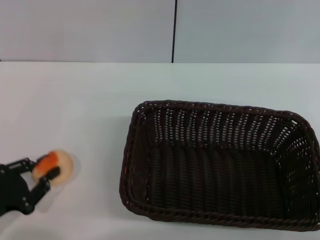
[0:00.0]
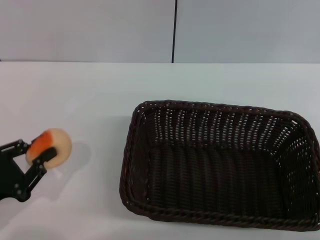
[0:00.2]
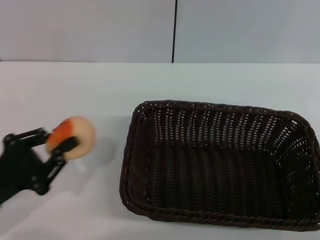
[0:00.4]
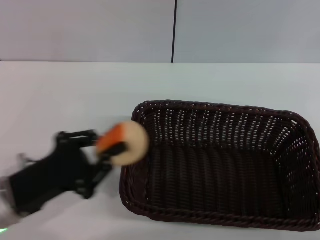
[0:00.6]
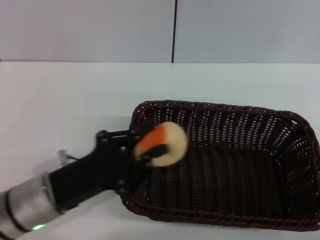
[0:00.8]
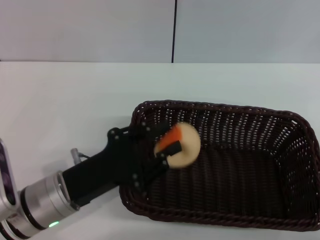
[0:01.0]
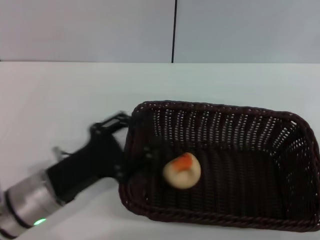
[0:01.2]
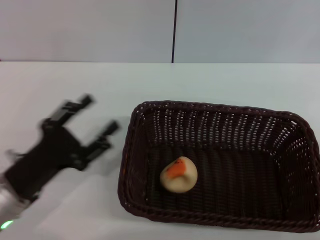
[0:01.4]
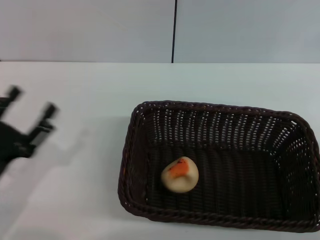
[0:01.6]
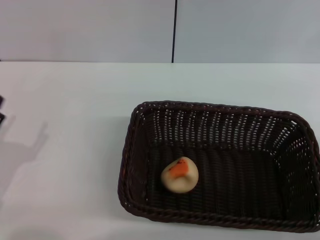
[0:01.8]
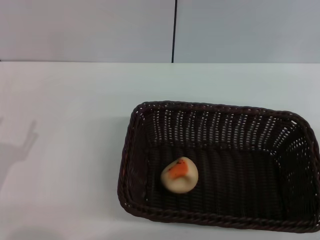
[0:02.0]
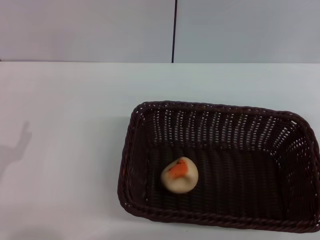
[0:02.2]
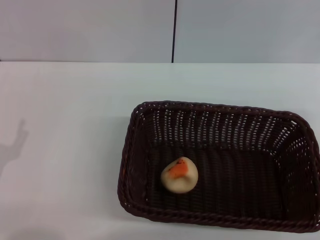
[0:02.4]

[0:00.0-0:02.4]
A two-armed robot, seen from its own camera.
Step, 0:00.2 to 0:01.2: Place the egg yolk pastry into the basket with the left gripper.
0:00.0 to 0:01.2: The left gripper travels to the right by about 10 cm.
0:01.2 to 0:02.4: The right gripper heads forward, covering about 10 cm, while the left gripper travels to the left by approximately 10 cm, and opens up.
